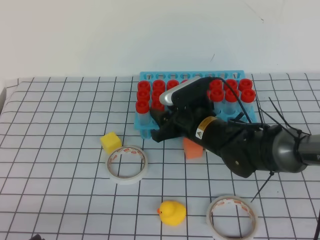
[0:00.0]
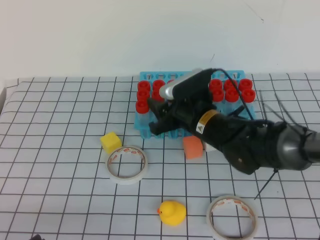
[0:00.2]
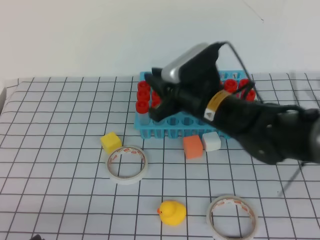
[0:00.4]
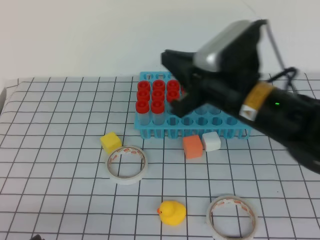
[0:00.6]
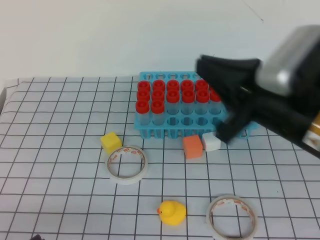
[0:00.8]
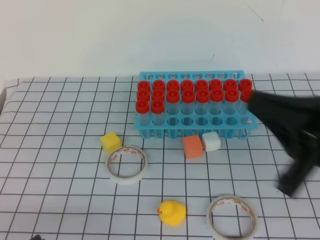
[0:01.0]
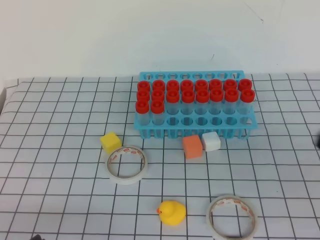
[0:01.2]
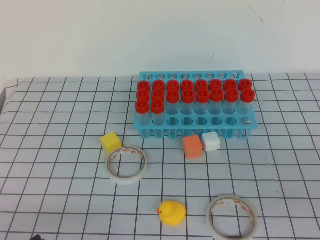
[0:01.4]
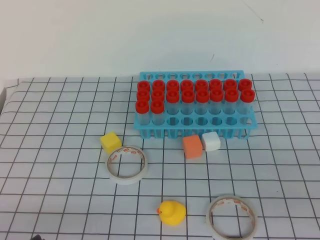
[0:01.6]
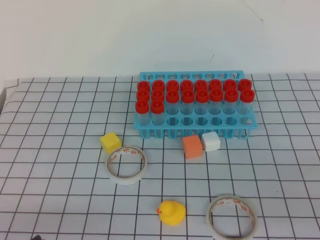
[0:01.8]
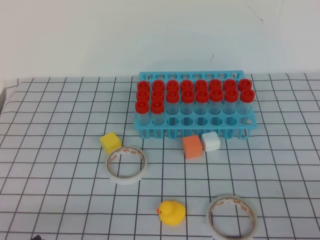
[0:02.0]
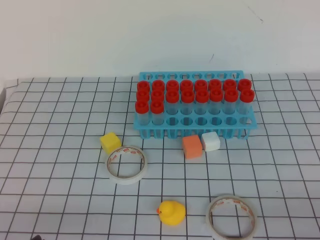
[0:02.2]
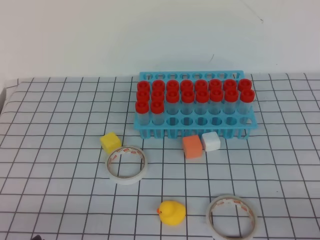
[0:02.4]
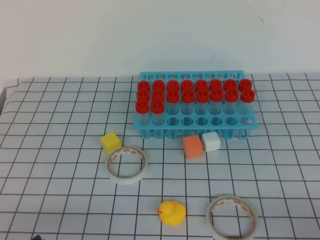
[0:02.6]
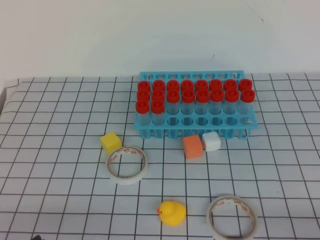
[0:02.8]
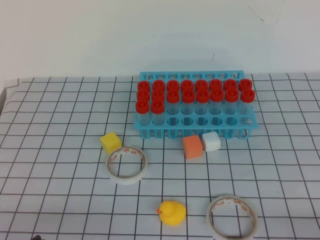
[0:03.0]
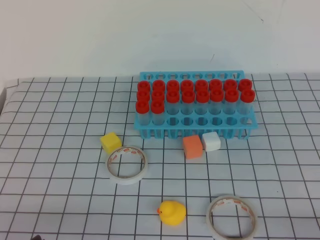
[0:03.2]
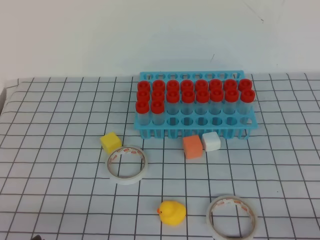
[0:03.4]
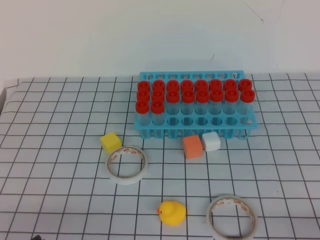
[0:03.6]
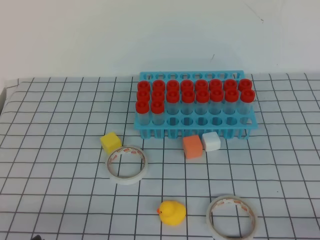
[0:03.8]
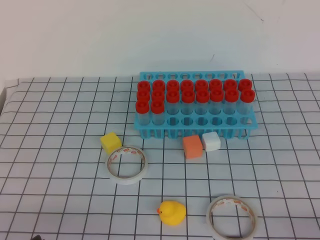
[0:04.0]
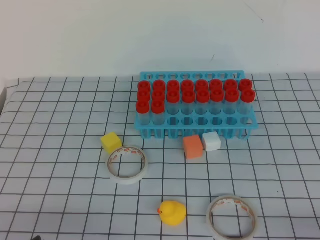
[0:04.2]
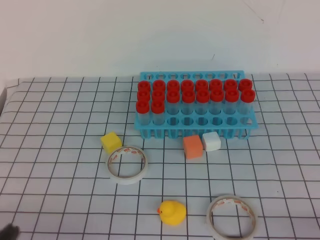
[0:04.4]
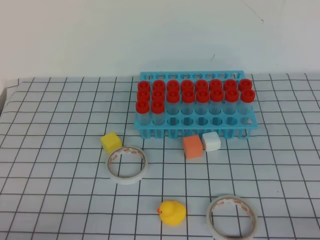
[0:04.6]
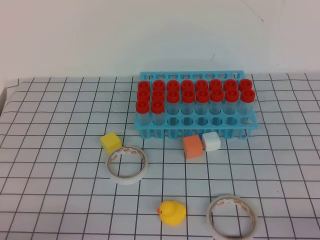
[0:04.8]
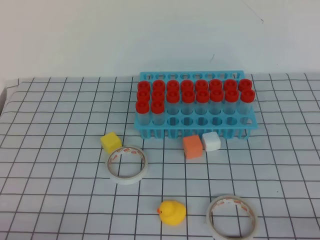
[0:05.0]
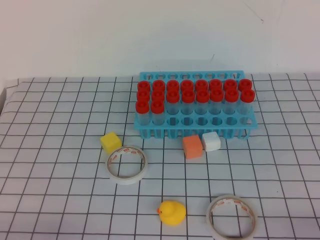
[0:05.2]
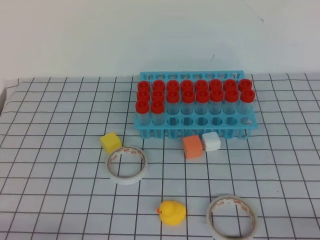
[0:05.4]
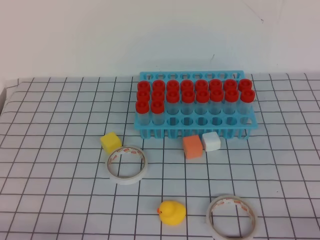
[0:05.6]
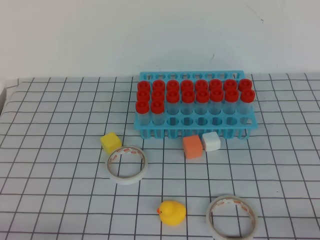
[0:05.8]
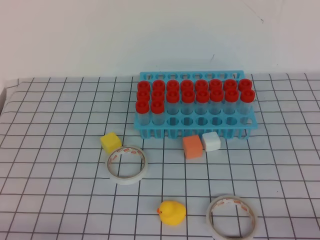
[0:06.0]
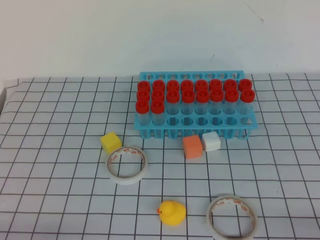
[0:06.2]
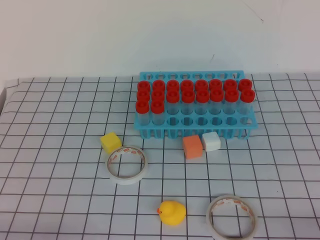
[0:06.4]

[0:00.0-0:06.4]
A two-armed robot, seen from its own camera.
0:00.0 to 0:01.6: The right gripper shifts about 35 cm backward and to the right, and closes its fingers.

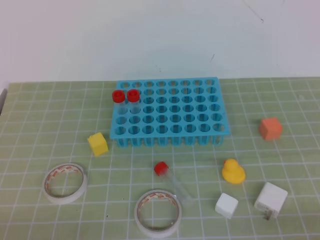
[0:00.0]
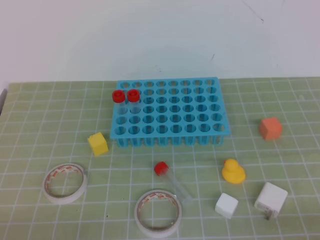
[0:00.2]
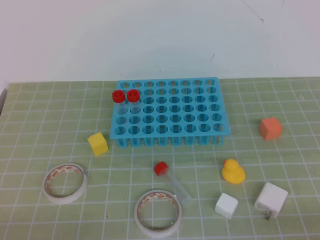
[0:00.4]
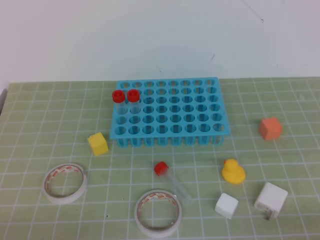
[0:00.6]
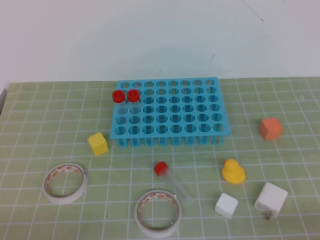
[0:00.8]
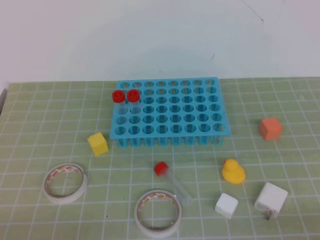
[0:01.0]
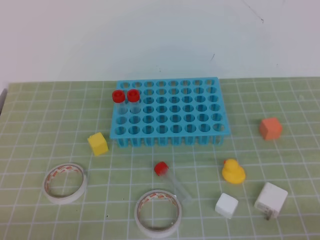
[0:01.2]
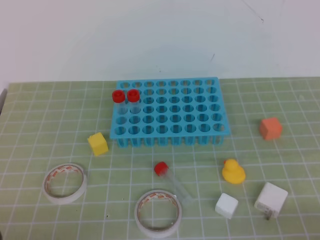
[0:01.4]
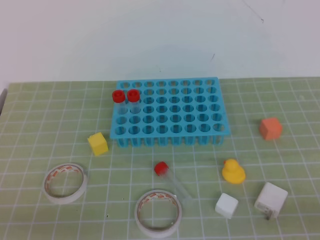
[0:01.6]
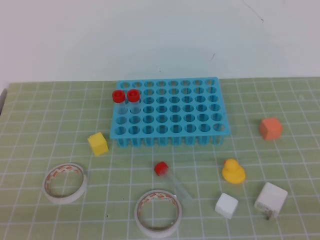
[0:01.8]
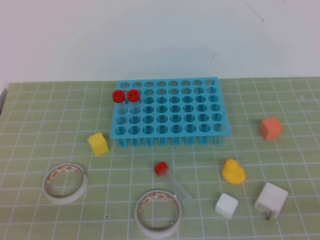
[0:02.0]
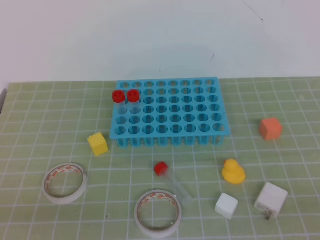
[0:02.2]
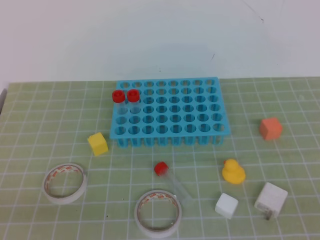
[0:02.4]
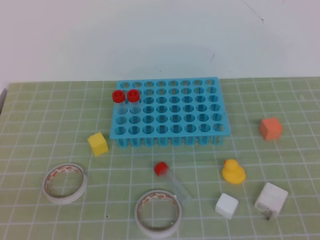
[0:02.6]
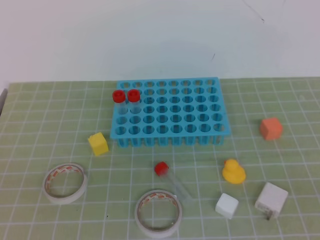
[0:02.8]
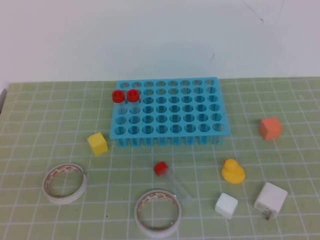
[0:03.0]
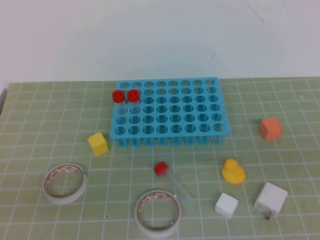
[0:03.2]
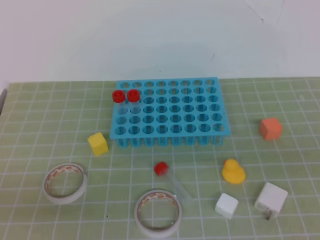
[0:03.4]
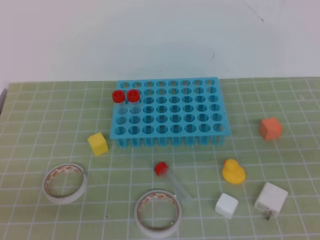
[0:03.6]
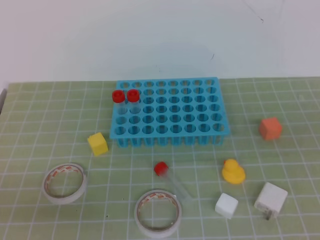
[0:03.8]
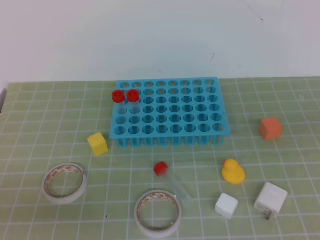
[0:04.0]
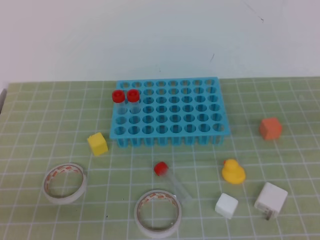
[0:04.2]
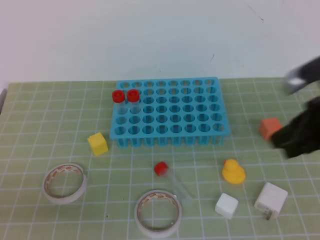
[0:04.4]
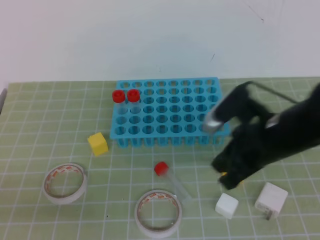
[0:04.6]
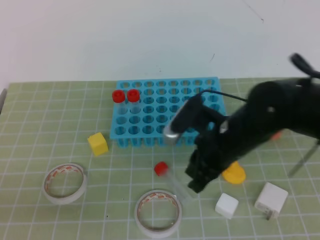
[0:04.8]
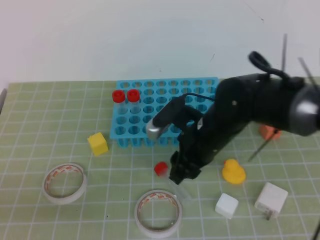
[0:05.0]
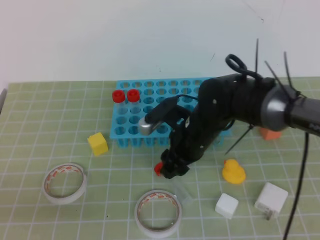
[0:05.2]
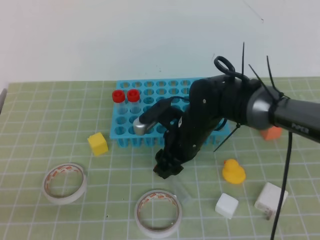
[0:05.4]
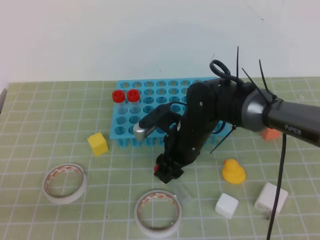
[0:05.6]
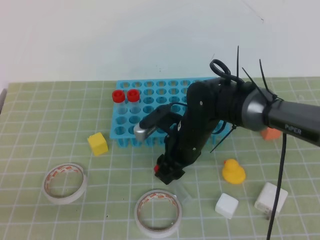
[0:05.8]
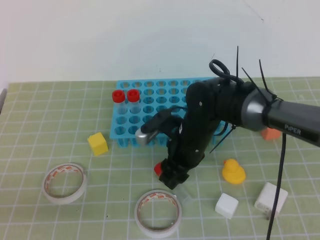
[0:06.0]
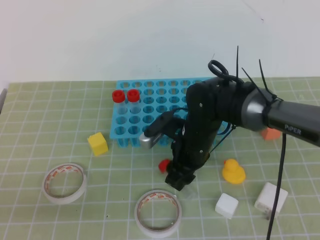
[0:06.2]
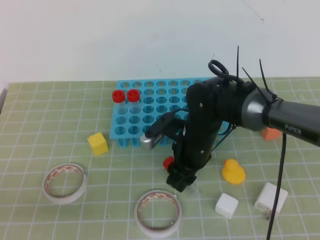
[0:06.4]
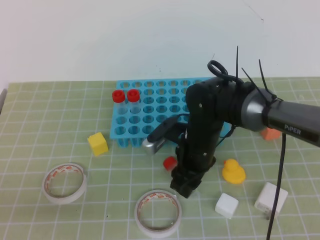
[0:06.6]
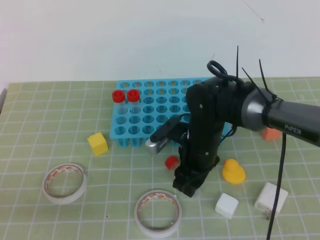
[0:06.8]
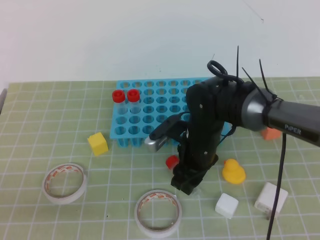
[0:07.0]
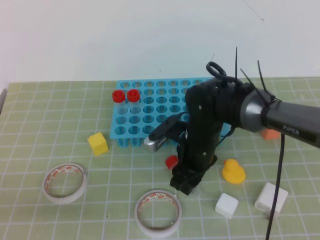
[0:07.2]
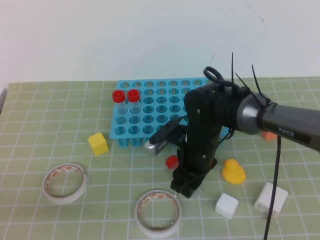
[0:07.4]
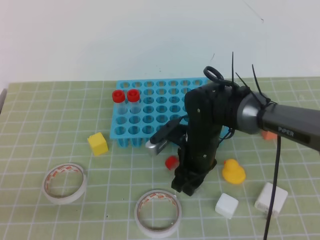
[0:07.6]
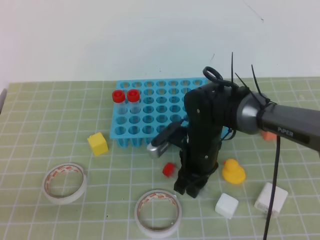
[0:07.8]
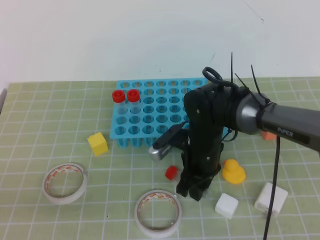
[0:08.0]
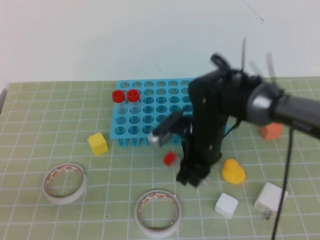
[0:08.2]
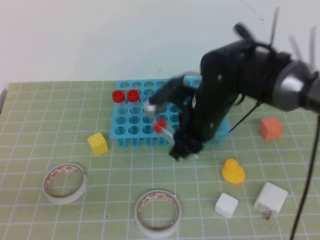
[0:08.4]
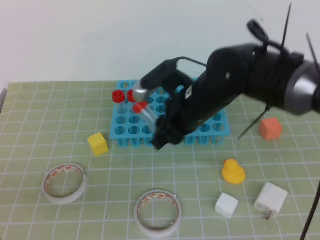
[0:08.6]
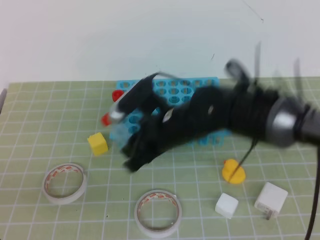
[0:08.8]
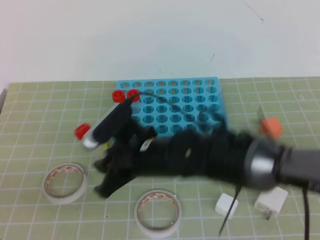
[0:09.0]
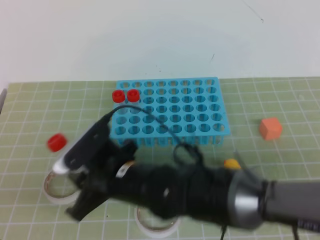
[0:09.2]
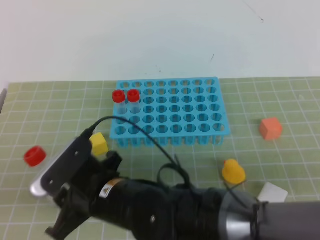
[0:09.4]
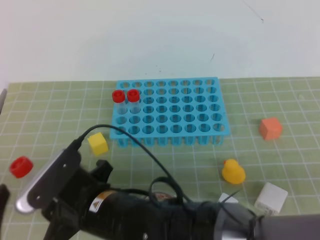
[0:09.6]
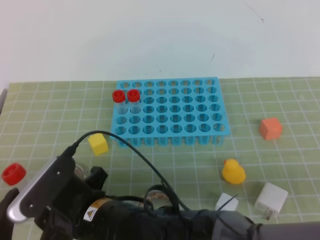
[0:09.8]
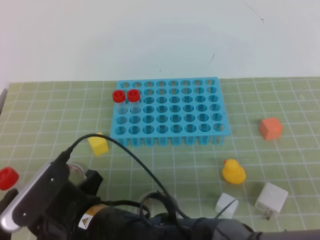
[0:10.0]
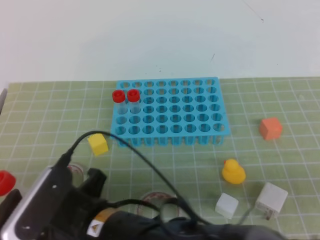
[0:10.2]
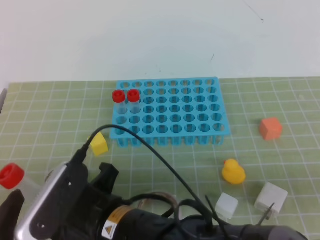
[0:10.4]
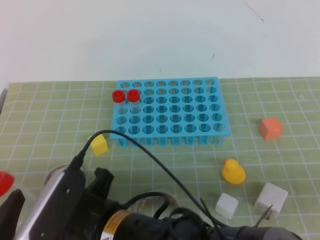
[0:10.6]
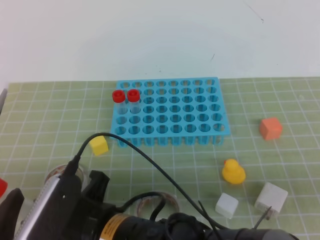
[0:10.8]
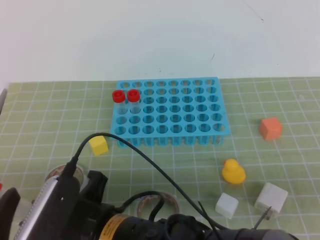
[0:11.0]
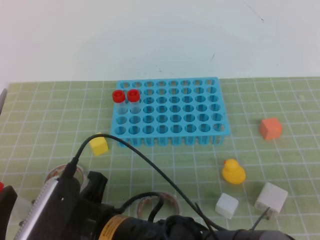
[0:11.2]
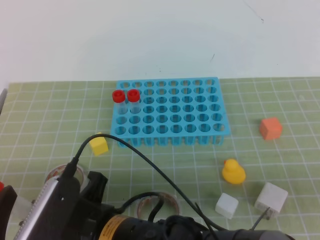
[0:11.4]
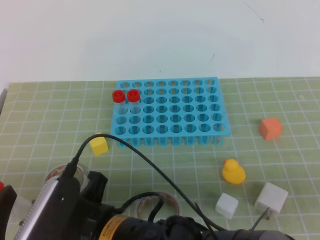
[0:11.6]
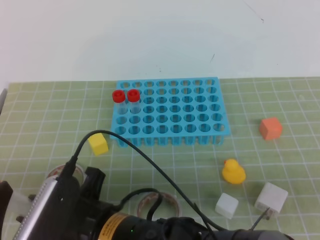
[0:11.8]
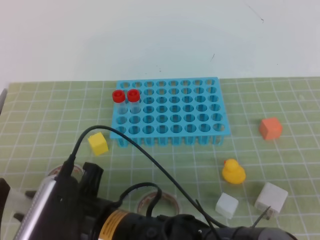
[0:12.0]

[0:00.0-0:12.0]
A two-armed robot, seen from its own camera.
0:03.0 to 0:04.4: The right gripper shifts some 25 cm forward.
0:04.4 to 0:06.0: The right gripper heads to the left, downward and forward, covering roughly 25 cm, and opens its fingers.
0:06.0 to 0:07.6: The grippers make only small movements.
0:07.6 to 0:09.0: The right gripper moves to the left, upward and backward, about 15 cm.
0:09.0 to 0:10.4: The left gripper opens up, while the right gripper travels backward by approximately 15 cm.
0:10.4 to 0:12.0: There are only small adjustments of the grippers.

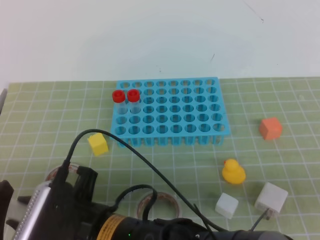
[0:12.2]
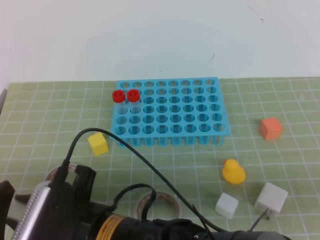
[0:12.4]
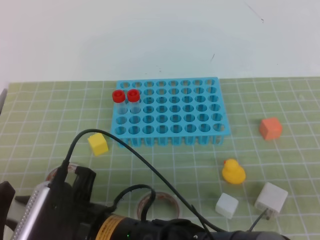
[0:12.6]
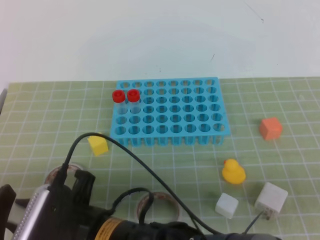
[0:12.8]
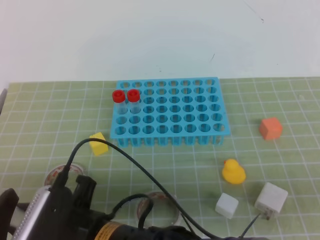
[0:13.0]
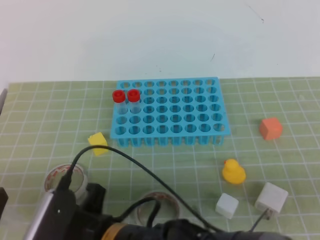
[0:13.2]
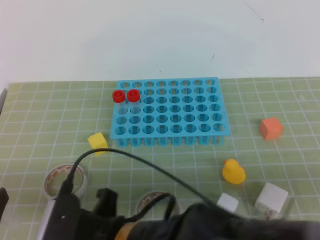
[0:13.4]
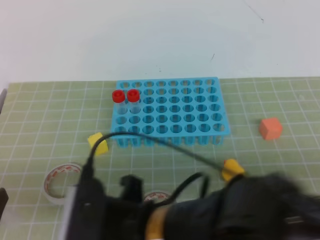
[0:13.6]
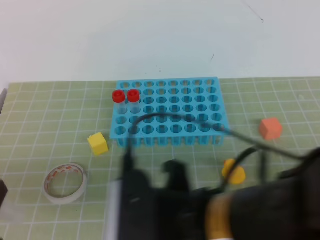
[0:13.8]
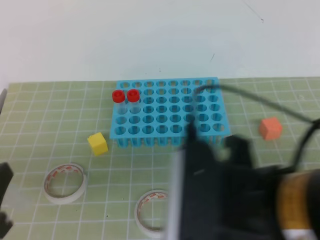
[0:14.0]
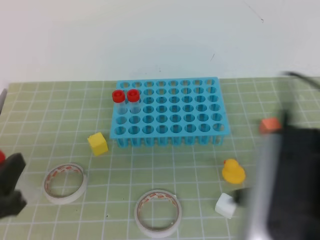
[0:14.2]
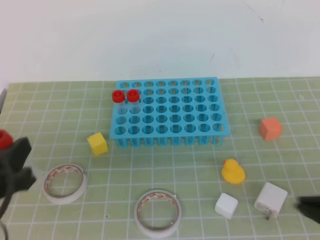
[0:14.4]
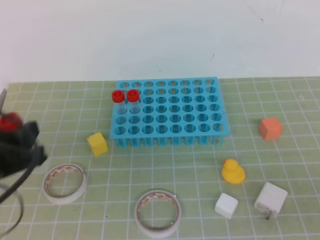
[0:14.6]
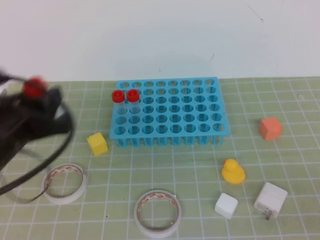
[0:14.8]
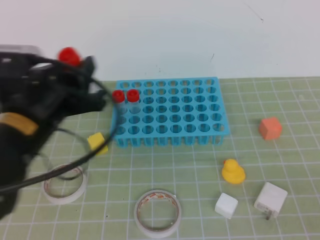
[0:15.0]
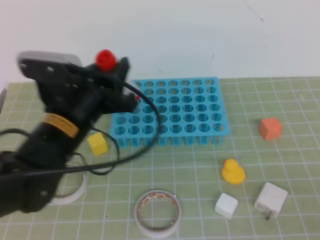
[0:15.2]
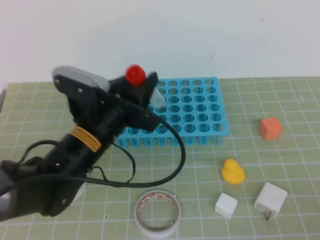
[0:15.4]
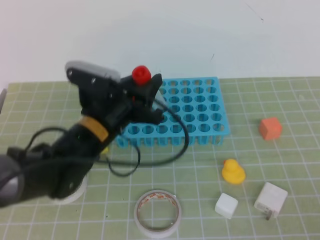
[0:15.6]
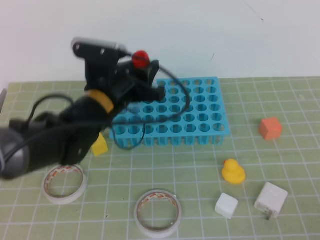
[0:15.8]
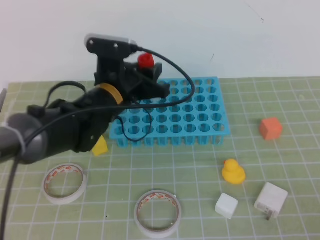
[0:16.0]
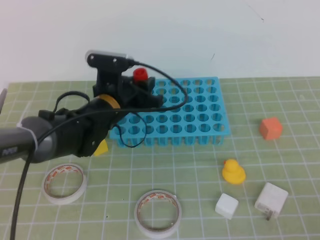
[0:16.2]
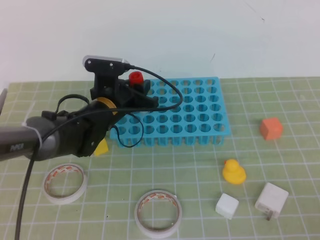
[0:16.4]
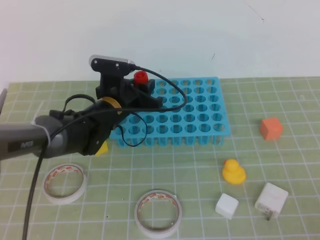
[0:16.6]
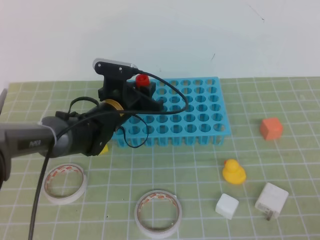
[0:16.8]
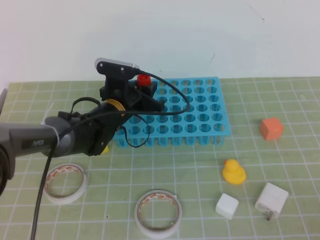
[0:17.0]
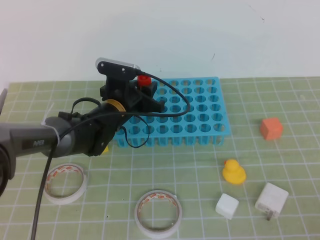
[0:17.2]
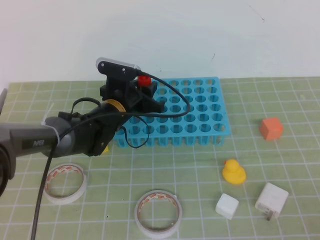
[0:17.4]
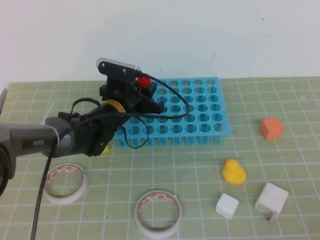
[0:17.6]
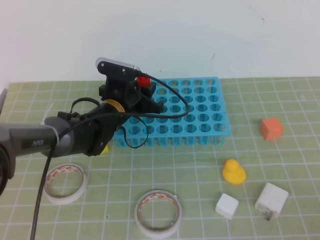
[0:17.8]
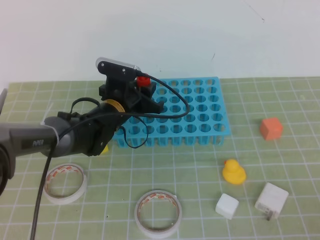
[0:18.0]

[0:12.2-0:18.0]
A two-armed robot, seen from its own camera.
0:12.2 to 0:13.6: The right gripper goes roughly 5 cm to the right.
0:13.6 to 0:15.0: The left gripper is displaced forward and to the right by approximately 20 cm, while the right gripper heads to the right, covering some 35 cm, and closes its fingers.
0:15.0 to 0:16.6: The left gripper travels forward, downward and to the right by some 20 cm.
0:16.6 to 0:18.0: There are only small adjustments of the grippers.
